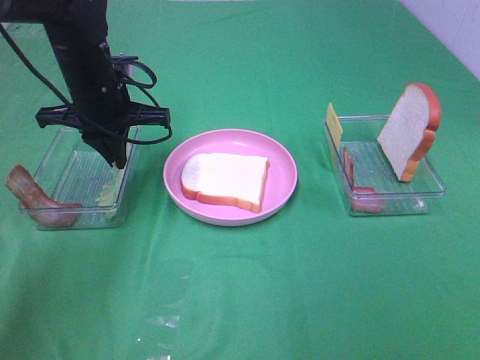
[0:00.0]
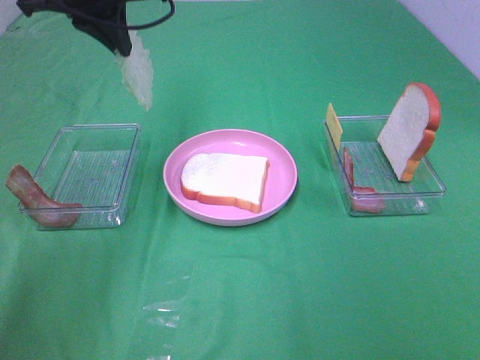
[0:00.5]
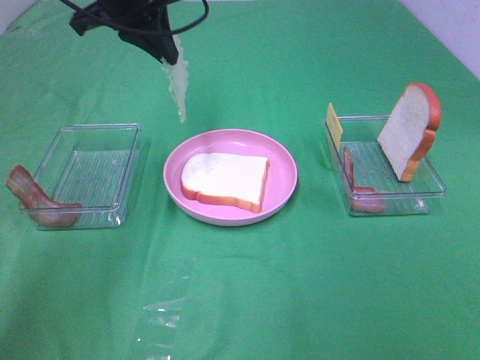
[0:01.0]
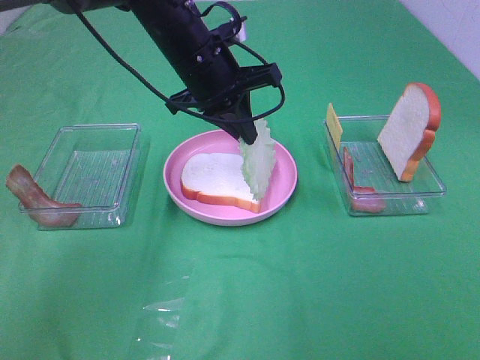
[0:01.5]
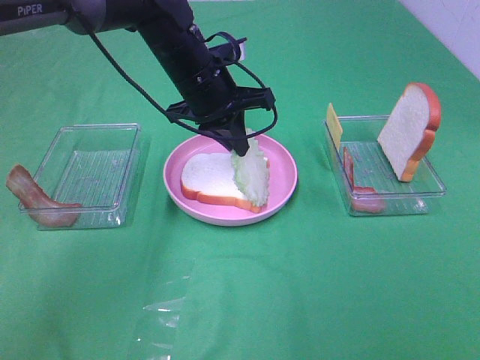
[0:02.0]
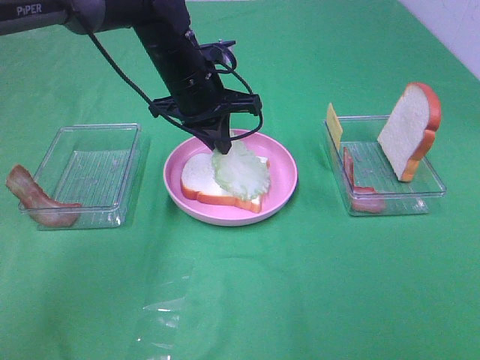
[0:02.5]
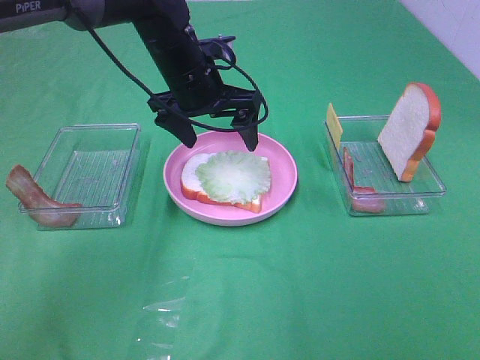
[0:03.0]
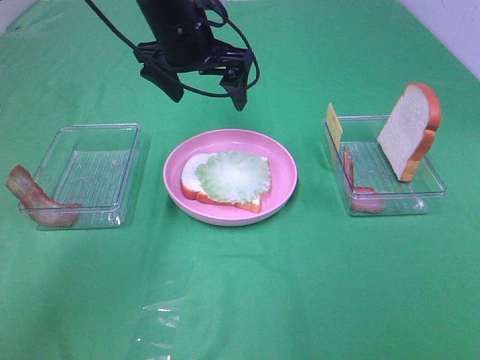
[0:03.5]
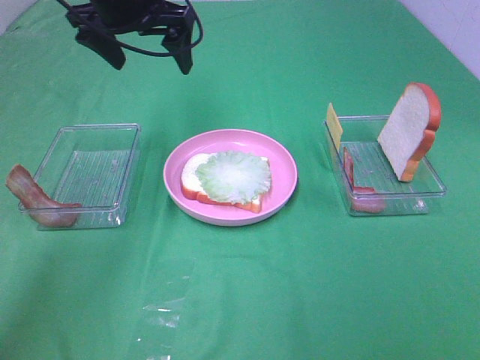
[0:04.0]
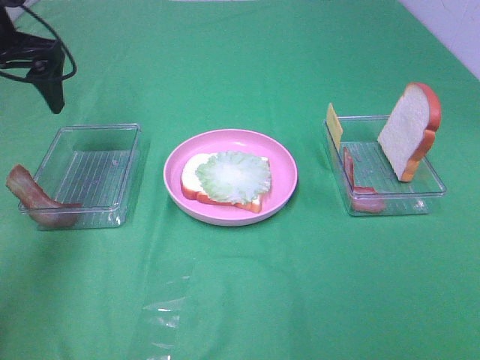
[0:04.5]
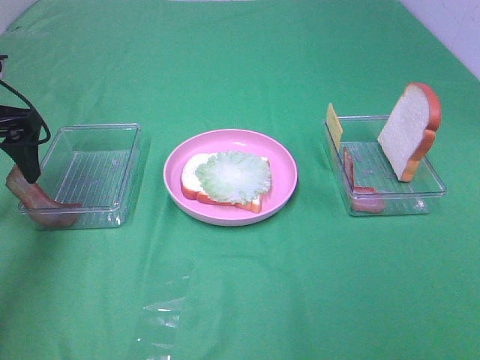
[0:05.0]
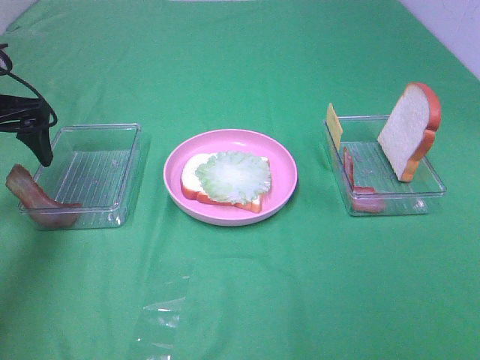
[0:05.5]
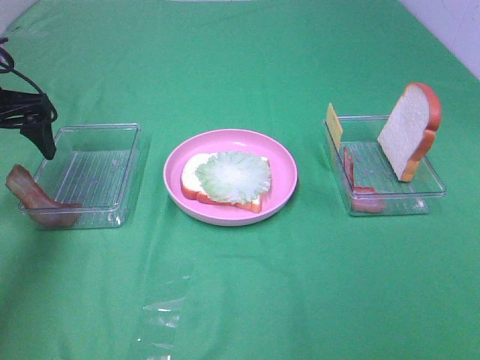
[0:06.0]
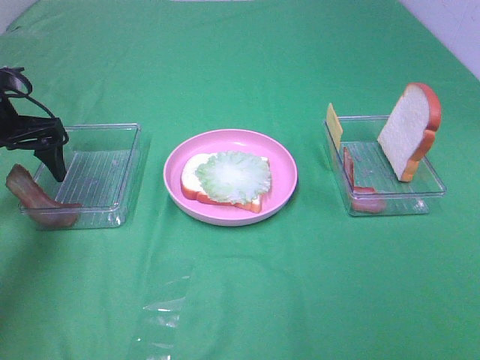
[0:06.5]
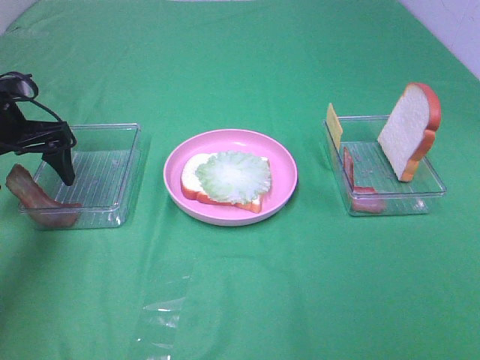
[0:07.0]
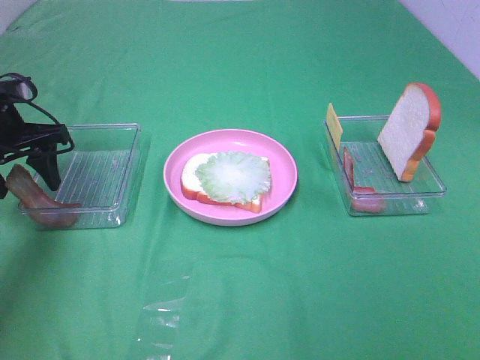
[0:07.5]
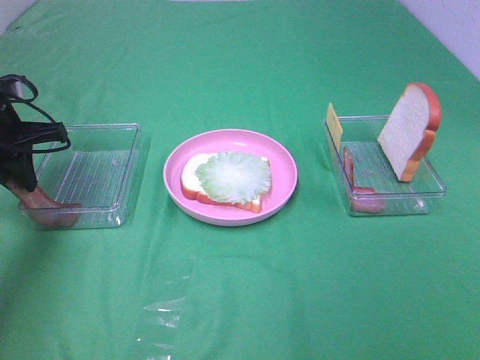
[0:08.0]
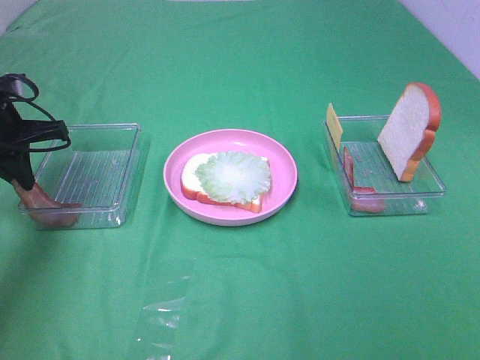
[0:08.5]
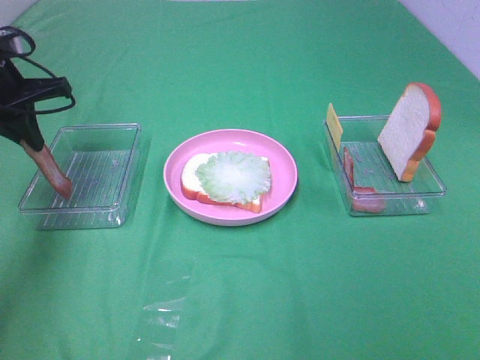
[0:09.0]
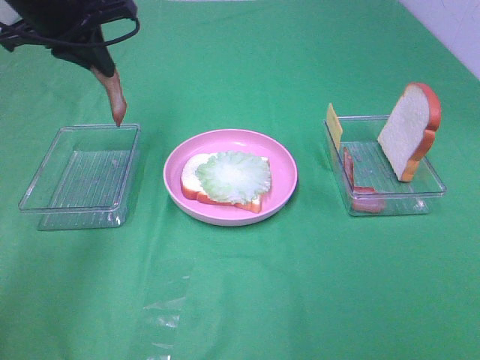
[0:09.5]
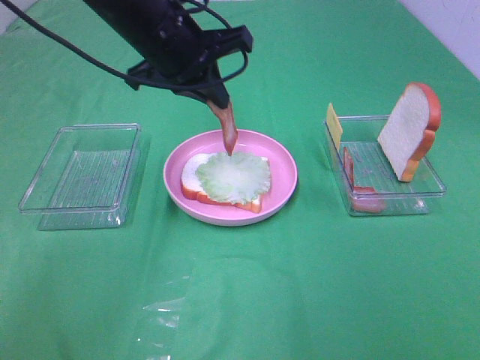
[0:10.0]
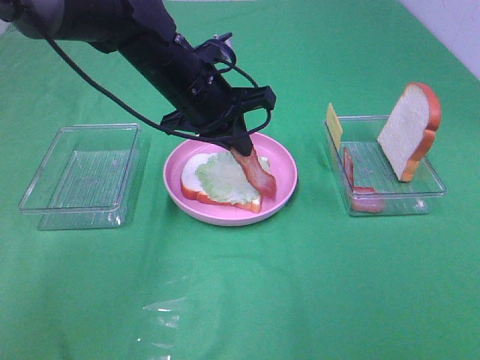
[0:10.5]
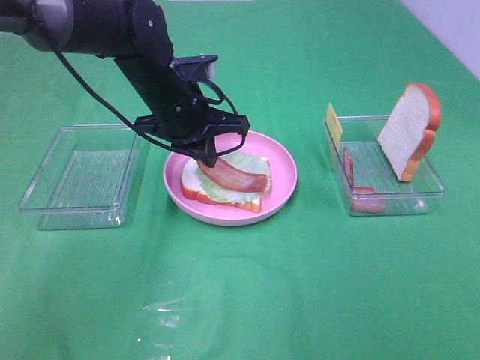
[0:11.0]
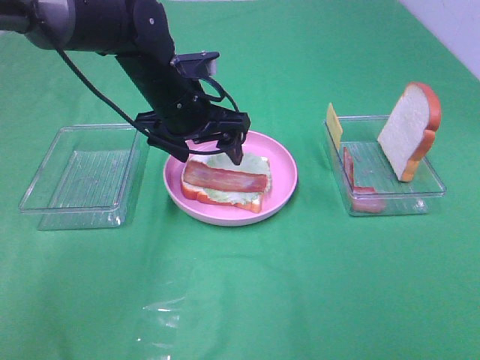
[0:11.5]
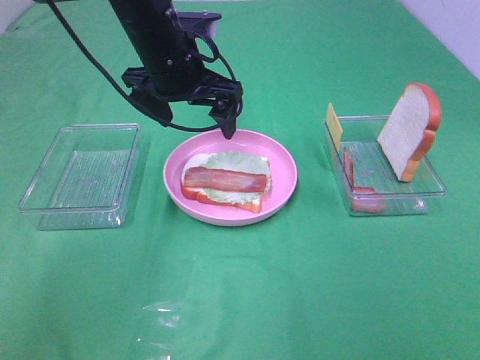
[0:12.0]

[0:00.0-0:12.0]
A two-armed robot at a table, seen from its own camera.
Task of the whole recording: Make sandwiches.
Step, 0:00.0 to 0:02.5: Left hand:place the lettuce slice on the bread slice.
Step, 0:03.0 to 0:08.0: Left hand:grab the bacon.
Step, 0:08.5 to 0:11.5: Left hand:place bacon on lettuce slice.
0:00.0 to 0:02.0: The left gripper shifts about 10 cm to the right, and reaches approximately 15 cm upward, then returns.
0:02.0 to 0:04.0: The left gripper travels upward and to the left by approximately 15 cm, and opens its fingers.
0:04.0 to 0:06.0: The left gripper shifts about 20 cm to the left, backward and downward.
0:06.0 to 0:08.0: The left gripper closes up.
0:08.0 to 0:10.0: The left gripper goes about 20 cm to the right.
0:10.0 to 0:12.0: The left gripper moves about 10 cm downward and comes back, and opens up.

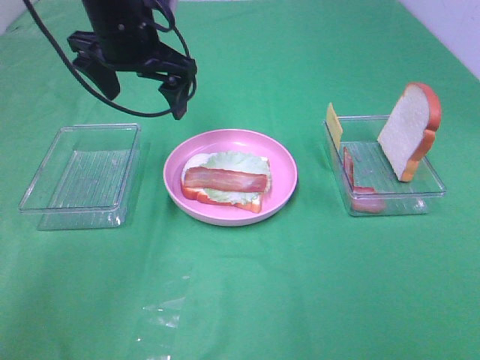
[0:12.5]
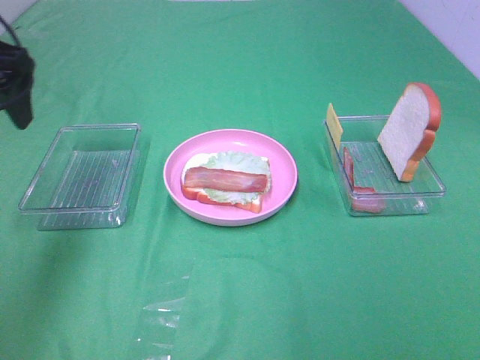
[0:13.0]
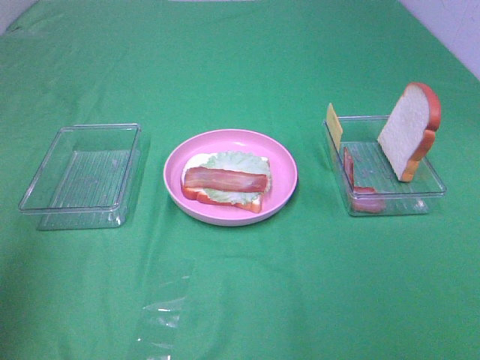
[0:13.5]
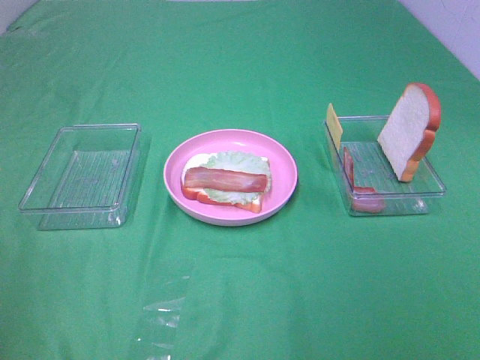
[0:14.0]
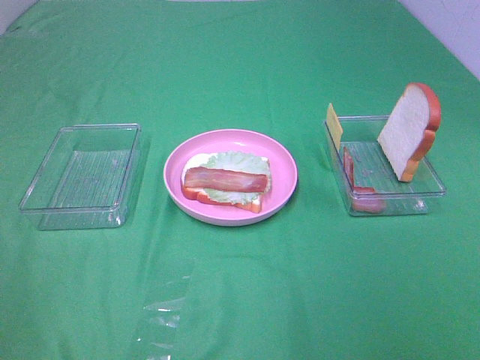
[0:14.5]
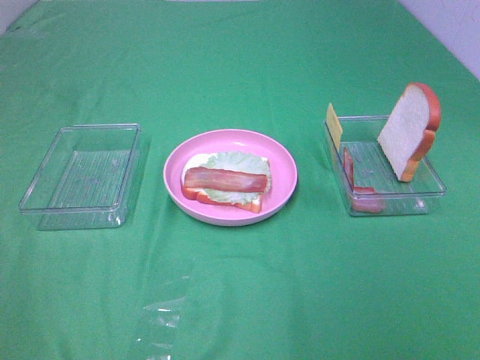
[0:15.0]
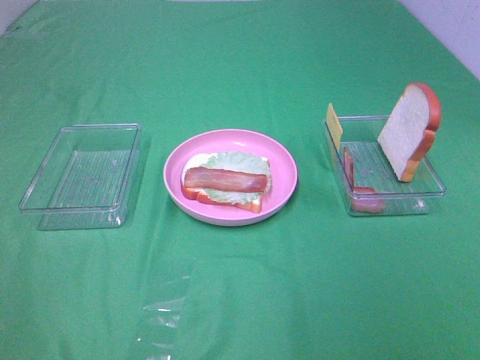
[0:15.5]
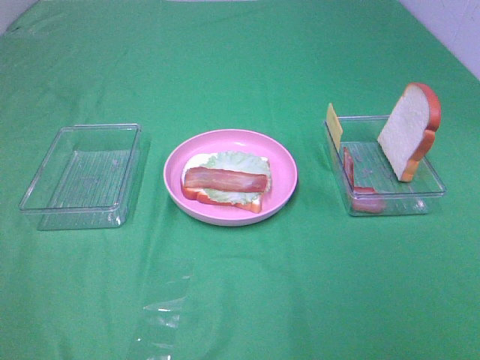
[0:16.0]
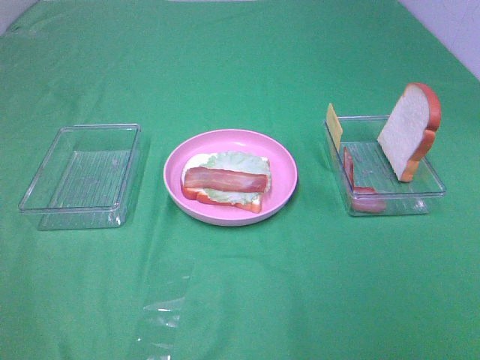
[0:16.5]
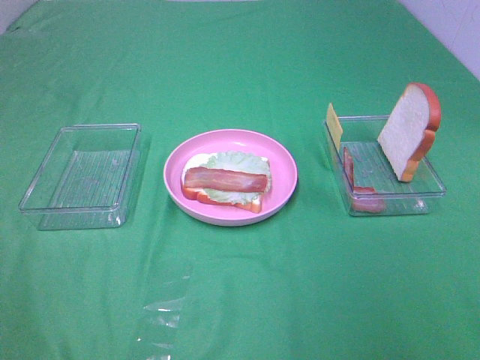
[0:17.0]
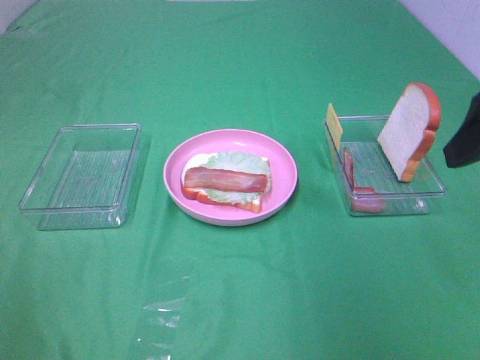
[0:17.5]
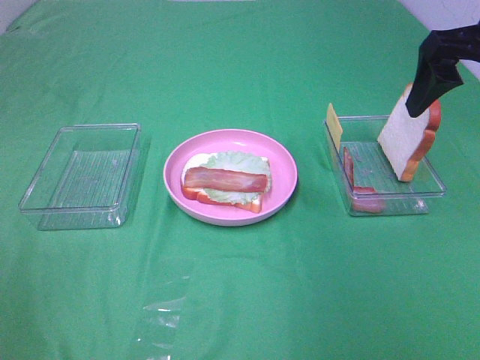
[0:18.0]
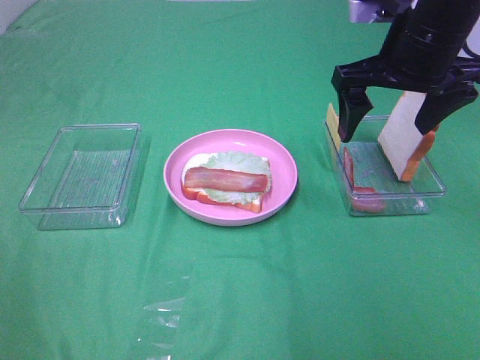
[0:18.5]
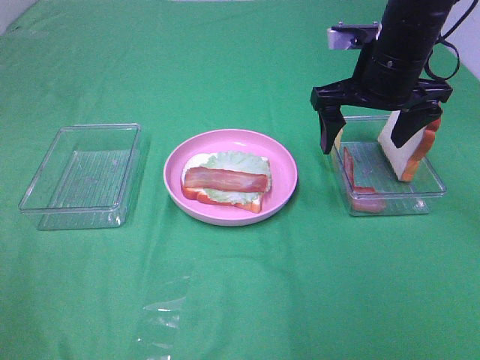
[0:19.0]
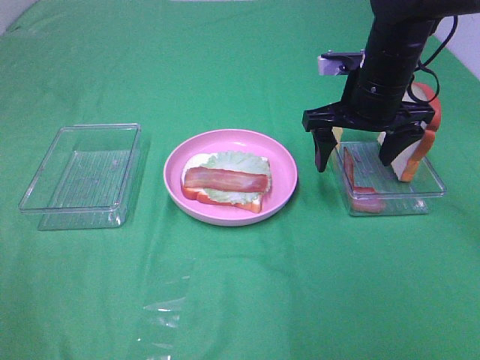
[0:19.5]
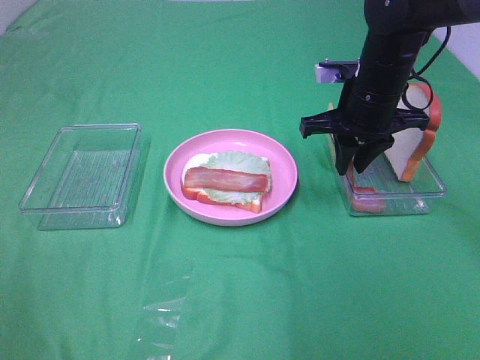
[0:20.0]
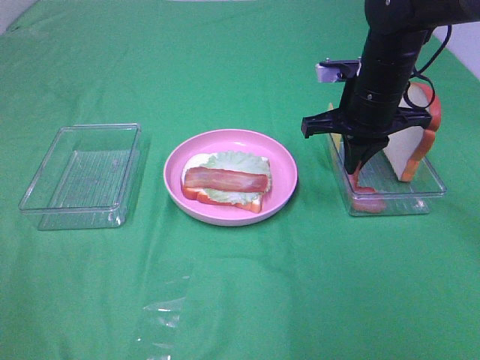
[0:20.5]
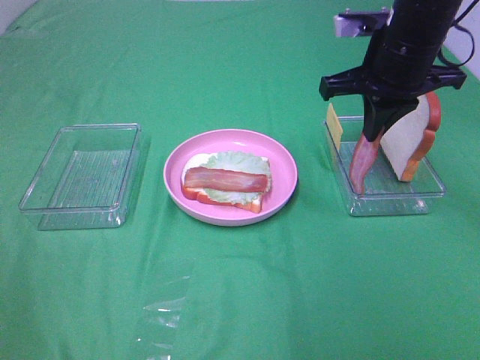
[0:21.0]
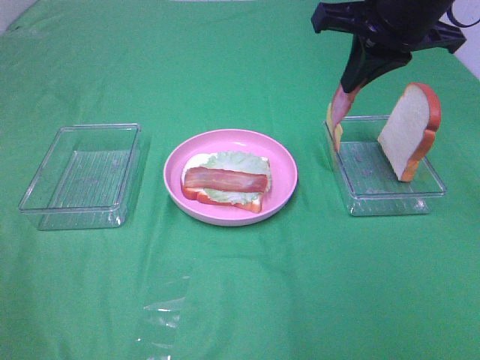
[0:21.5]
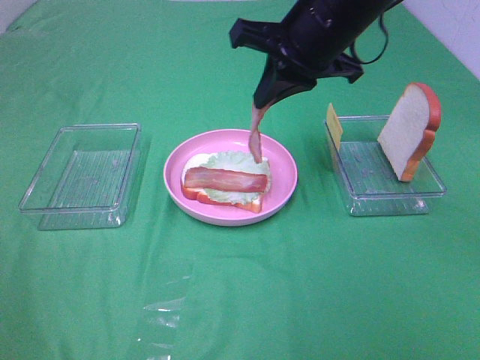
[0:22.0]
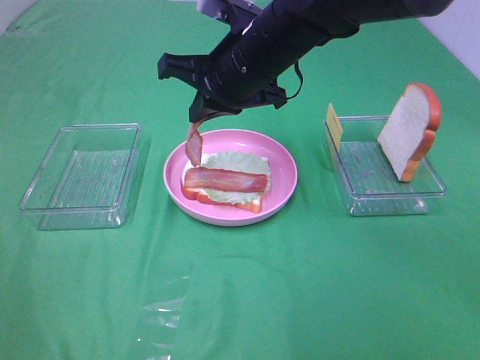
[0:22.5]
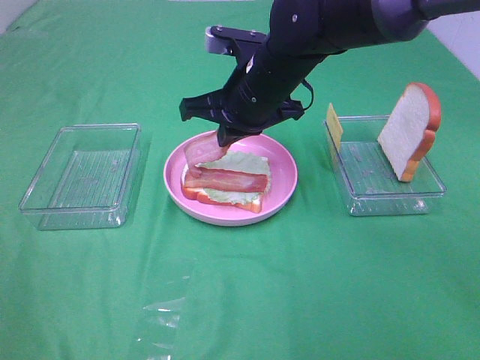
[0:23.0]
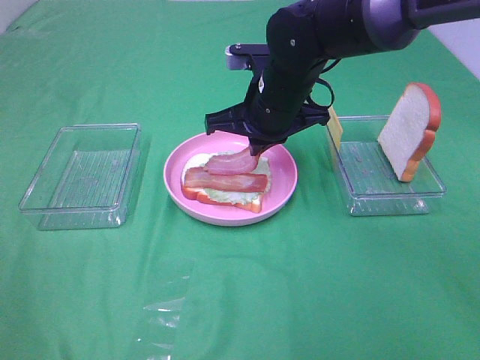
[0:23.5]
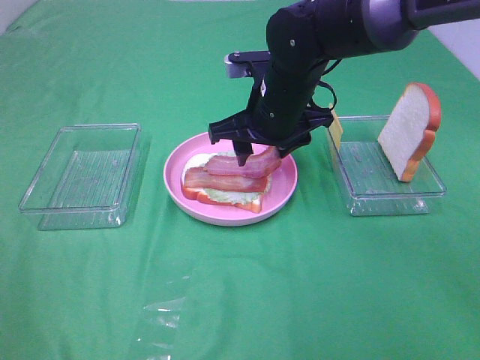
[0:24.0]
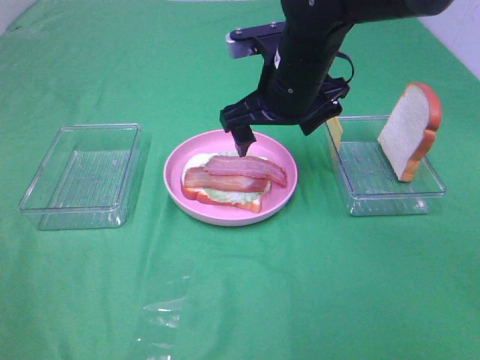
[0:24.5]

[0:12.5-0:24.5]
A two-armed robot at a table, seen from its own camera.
Task of the whole recording: Make sandwiches.
Step, 0:12.5 to 0:20.5: Right hand:grab the bacon.
Step, 0:21.0 to 0:24.0: Right hand:place bacon on bacon.
0:12.5 to 0:14.5: The left gripper moves backward and to the left, approximately 40 cm.
0:16.5 to 0:18.5: The right gripper moves forward, roughly 35 cm.
0:18.5 to 0:20.5: The right gripper shifts some 10 cm downward, and closes its fingers.
0:20.5 to 0:22.5: The right gripper goes about 15 cm to the left.
0:22.5 to 0:24.5: The right gripper opens its fingers.

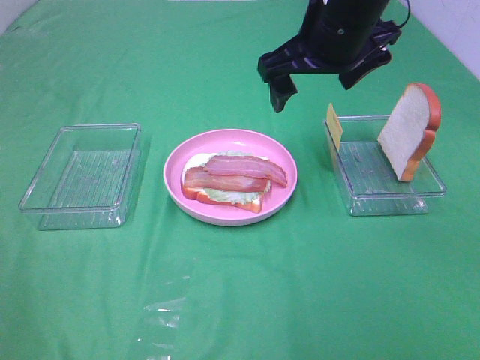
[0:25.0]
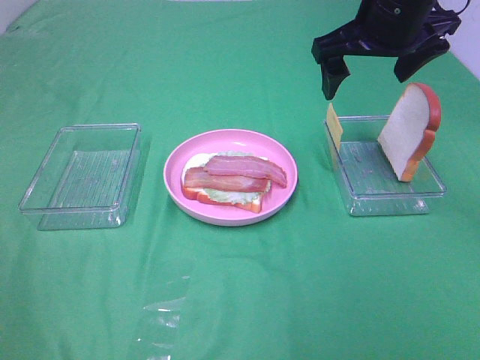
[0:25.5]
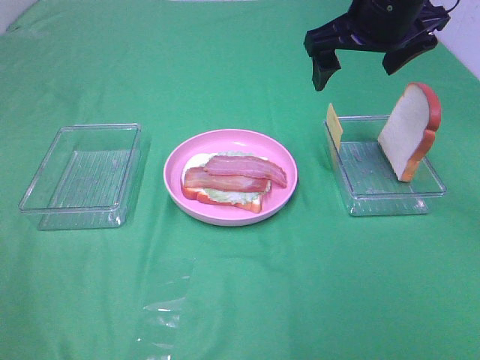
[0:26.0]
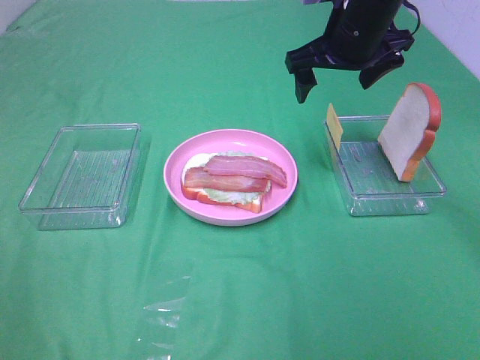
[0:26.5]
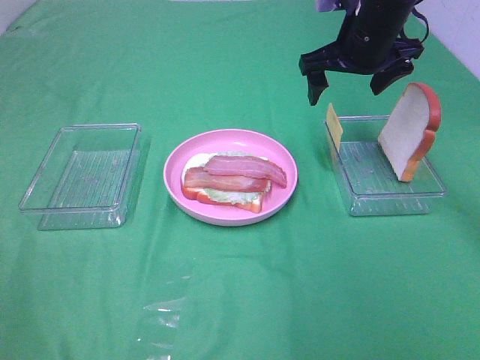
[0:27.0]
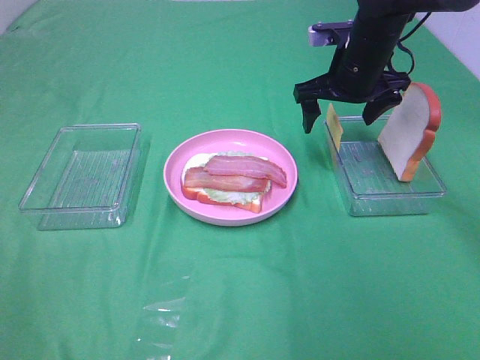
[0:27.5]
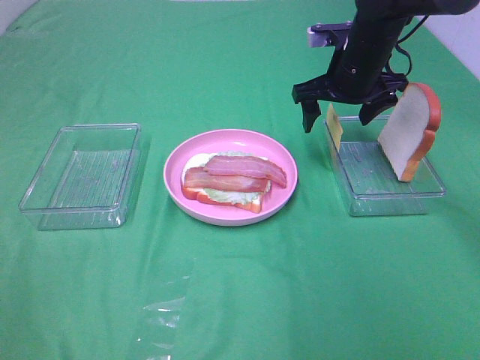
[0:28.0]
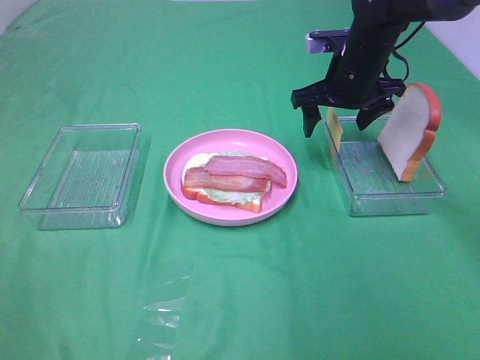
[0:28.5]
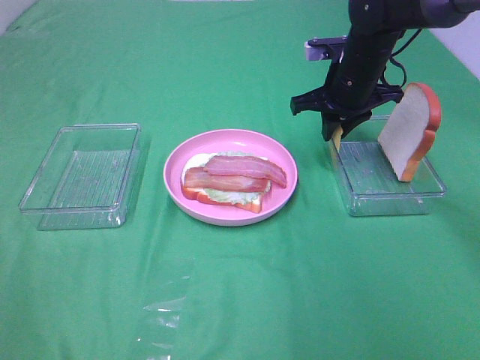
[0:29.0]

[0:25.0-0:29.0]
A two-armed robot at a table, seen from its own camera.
Task of the whole recording: Make sandwiches.
0:25.0 to 0:27.0: The right gripper travels forward and to the right by some 10 cm.
0:27.0 to 0:29.0: The right gripper goes approximately 5 cm downward, and closes its fingers.
